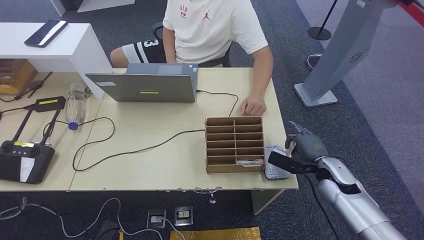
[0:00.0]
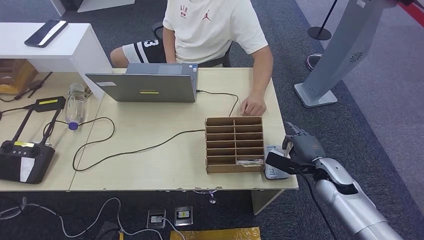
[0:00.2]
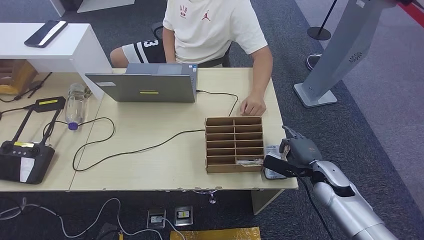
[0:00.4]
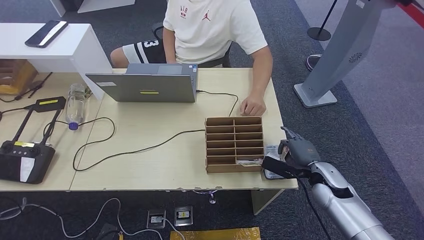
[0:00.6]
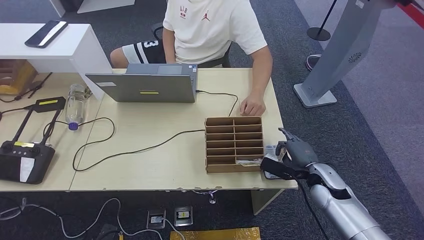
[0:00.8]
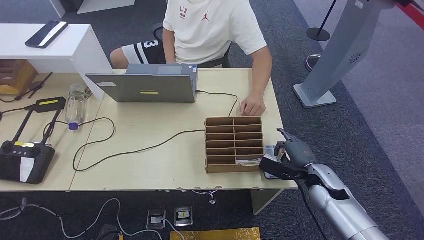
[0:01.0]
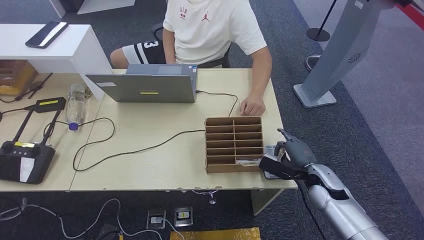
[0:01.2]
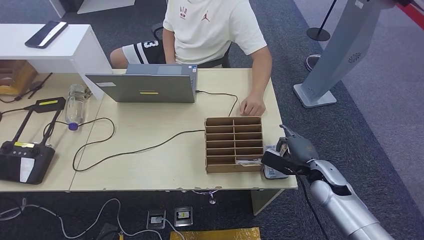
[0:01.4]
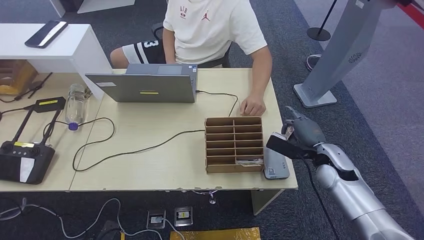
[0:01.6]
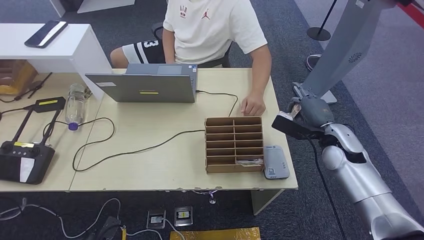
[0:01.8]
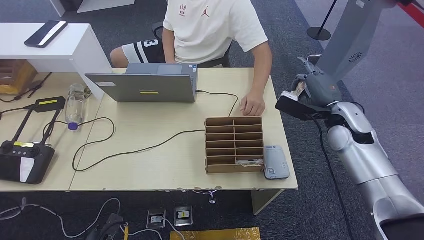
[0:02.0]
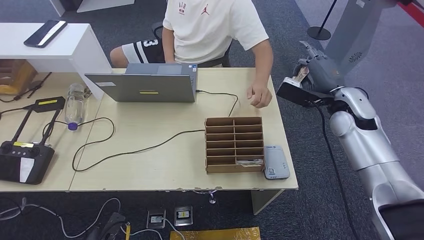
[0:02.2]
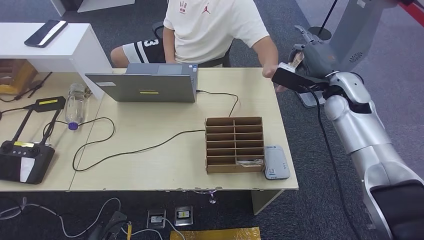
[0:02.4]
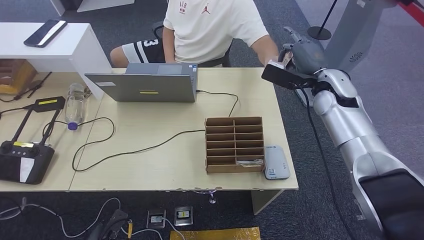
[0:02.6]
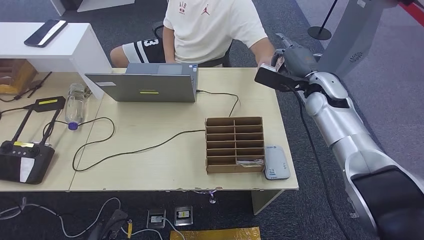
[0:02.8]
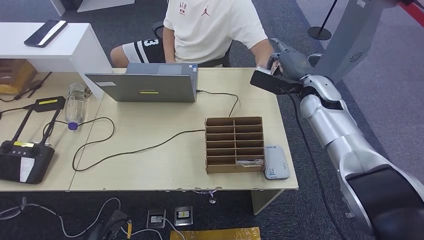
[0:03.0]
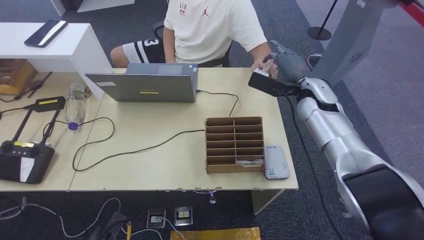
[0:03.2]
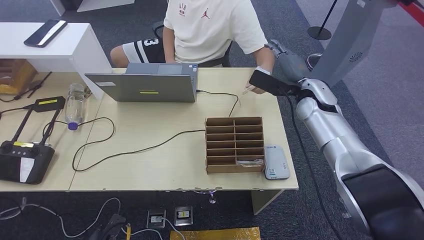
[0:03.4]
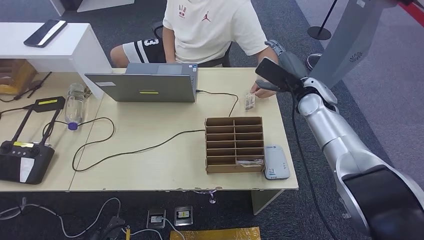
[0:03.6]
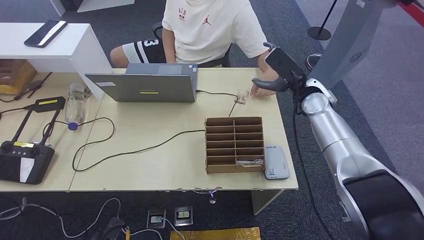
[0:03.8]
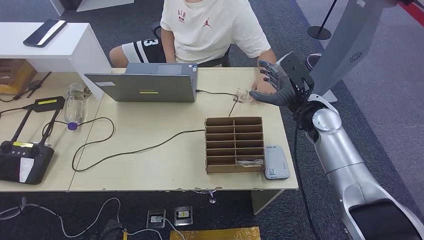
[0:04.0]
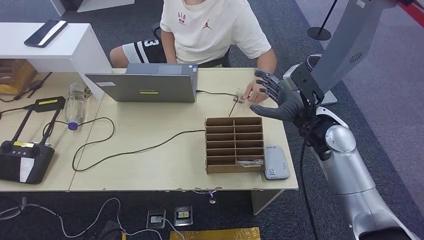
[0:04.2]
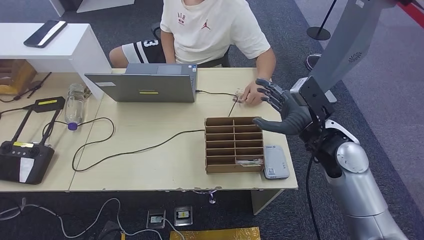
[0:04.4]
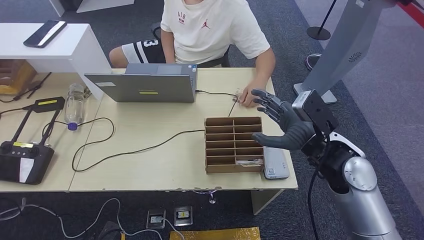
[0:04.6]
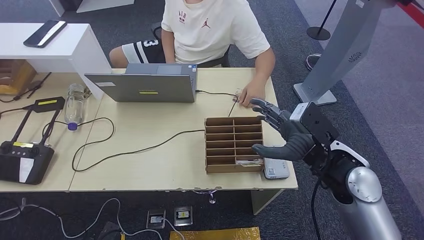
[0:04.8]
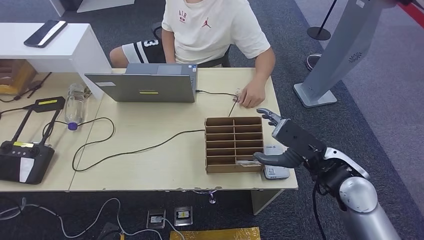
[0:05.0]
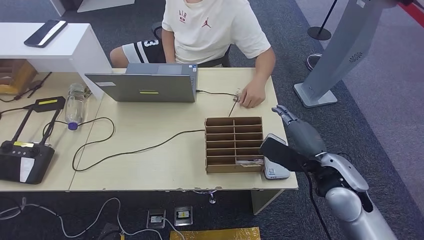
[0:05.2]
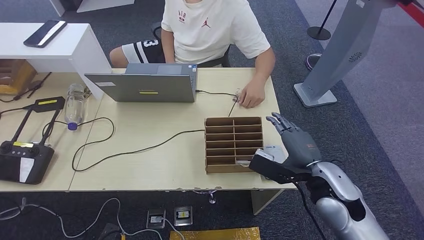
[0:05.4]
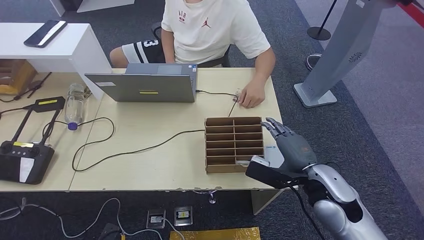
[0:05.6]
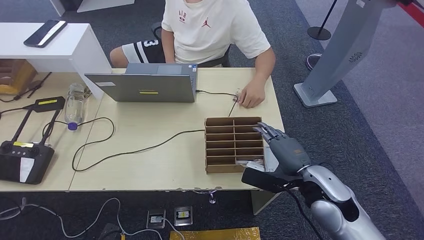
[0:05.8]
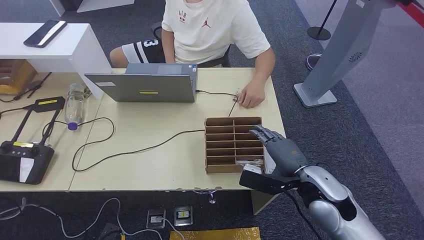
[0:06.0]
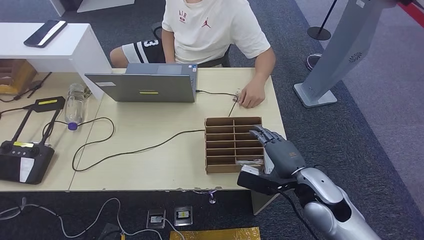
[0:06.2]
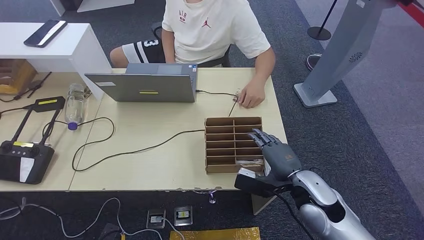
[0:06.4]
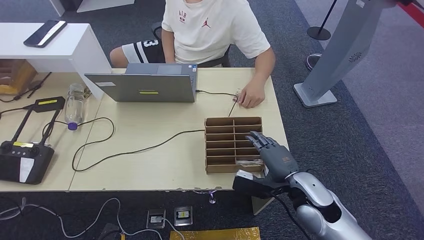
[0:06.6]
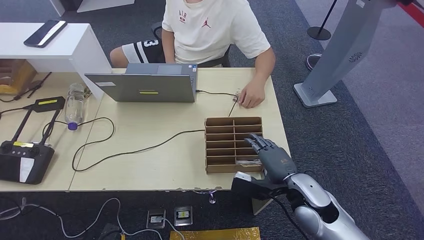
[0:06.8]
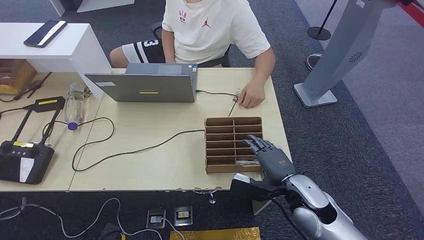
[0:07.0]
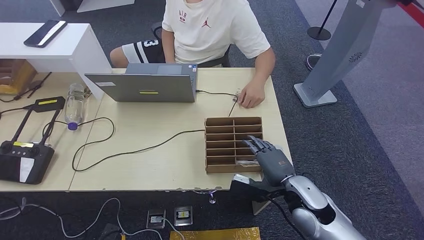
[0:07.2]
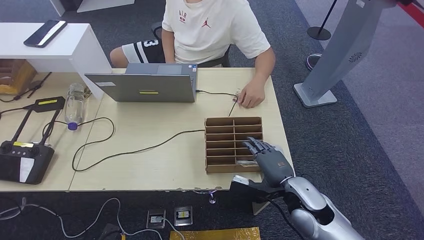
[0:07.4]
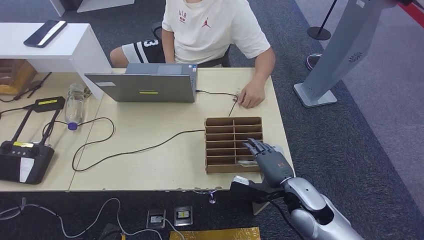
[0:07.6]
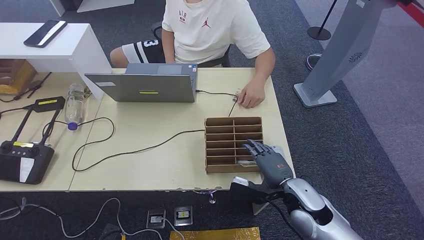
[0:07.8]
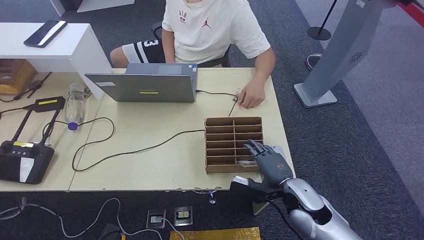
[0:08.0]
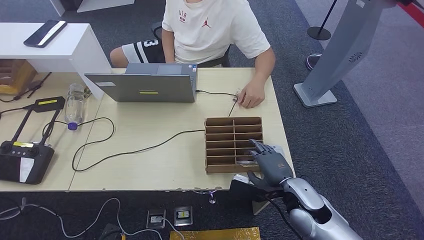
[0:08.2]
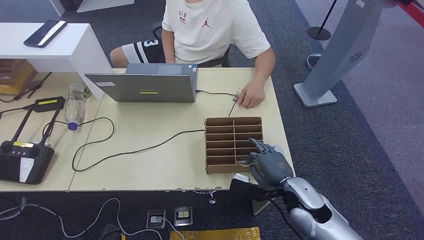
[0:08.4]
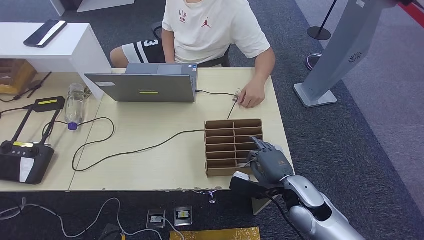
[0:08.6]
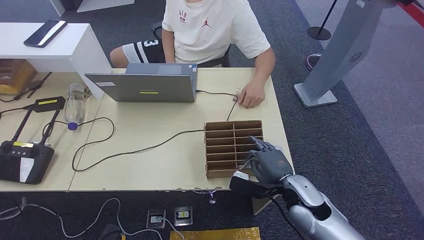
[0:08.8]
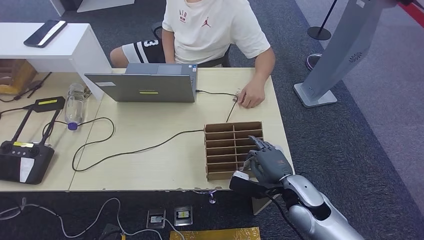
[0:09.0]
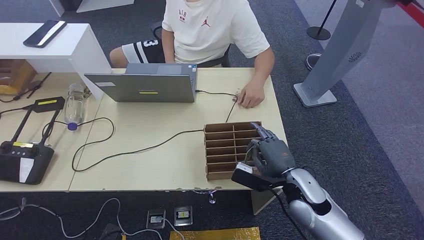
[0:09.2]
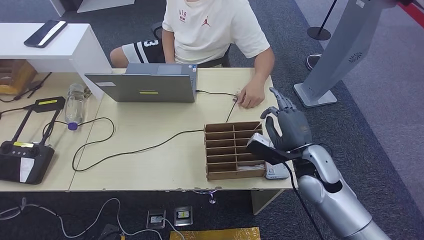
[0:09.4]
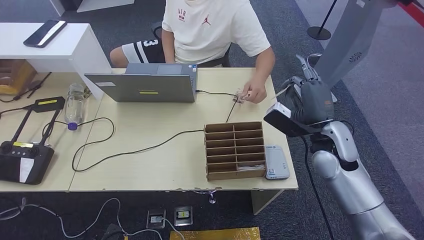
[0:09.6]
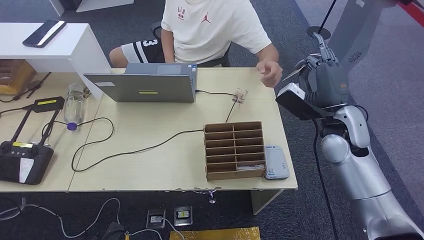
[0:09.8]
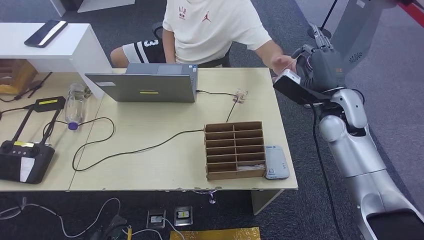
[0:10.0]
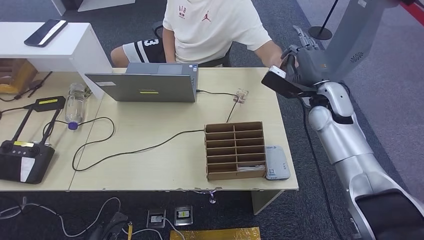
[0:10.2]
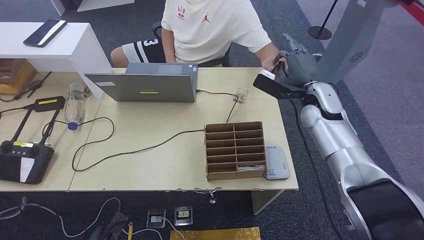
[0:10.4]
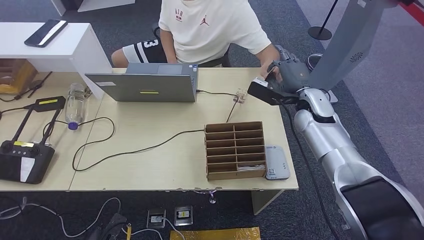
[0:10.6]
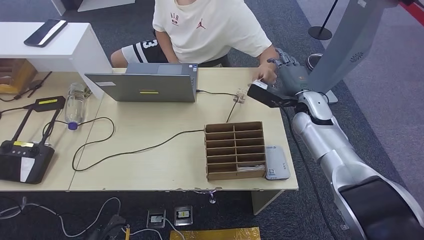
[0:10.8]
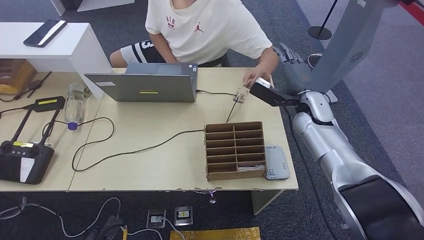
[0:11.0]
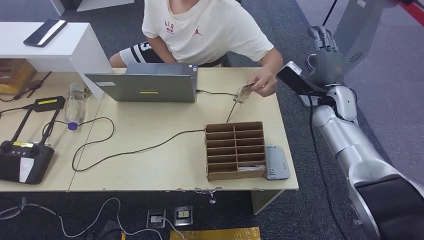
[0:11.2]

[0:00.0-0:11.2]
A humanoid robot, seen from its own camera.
Step, 0:00.0 to 0:01.2: Place the ID card on the card reader.
Step, 0:02.0 to 0:03.4: Hand the ID card to the person.
Step, 0:08.2 to 0:09.2: Pick up the room key from the key card box.
Step, 0:09.8 to 0:11.2: Hand the room key to the person.
0:00.0 to 0:01.6: The hands stay close to where they were, moving slightly.
0:01.6 to 0:03.2: The right hand shifts approximately 20 cm forward, upward and to the left.
0:03.2 to 0:04.8: The right hand is displaced backward by some 20 cm.
0:04.8 to 0:06.4: The right hand moves downward, roughly 10 cm.
0:06.4 to 0:08.0: The hands make only small movements.
0:08.0 to 0:09.6: The right hand goes some 15 cm upward, forward and to the right.
0:09.6 to 0:11.2: The right hand is displaced forward by about 10 cm.
